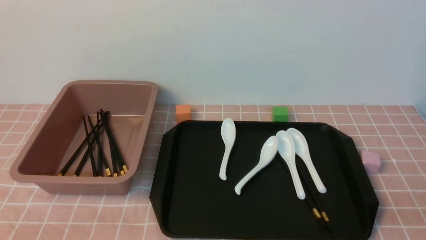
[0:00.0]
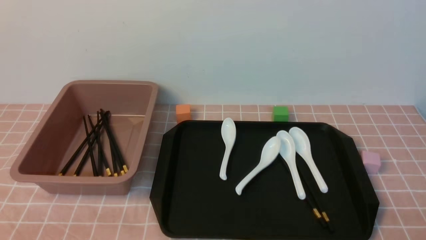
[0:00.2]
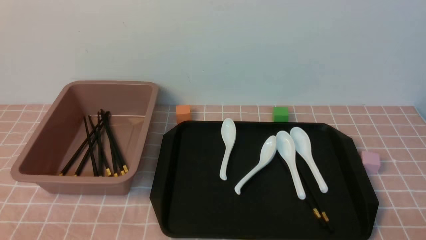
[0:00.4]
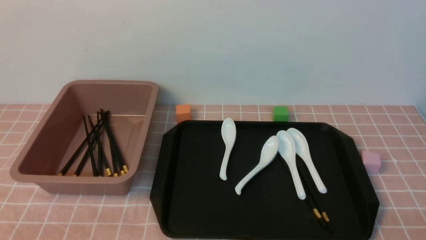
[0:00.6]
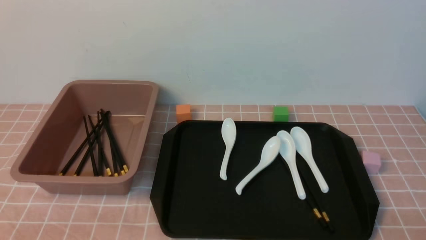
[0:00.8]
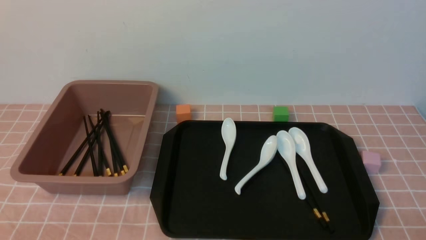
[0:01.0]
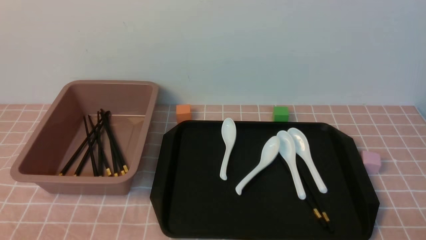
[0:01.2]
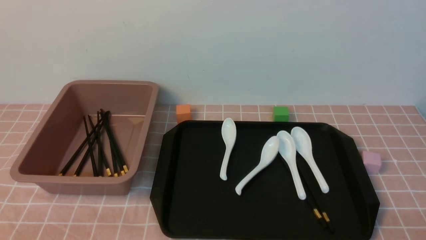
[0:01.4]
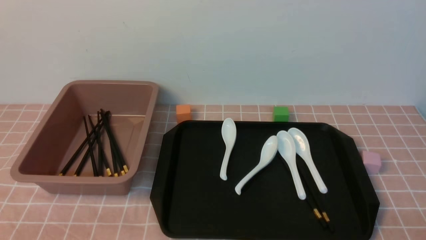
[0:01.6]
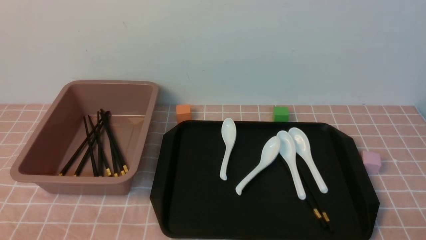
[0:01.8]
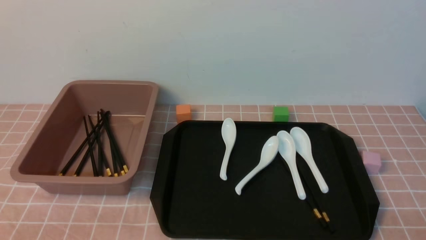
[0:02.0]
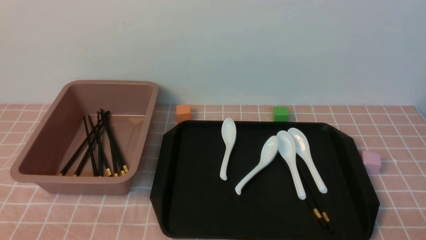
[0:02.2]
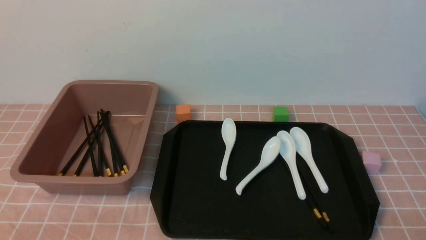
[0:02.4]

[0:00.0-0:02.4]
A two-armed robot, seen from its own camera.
0:00.0 to 0:01.2: The right gripper shifts about 10 cm downward.
0:01.2 to 0:02.4: Both grippers stay about where they are.

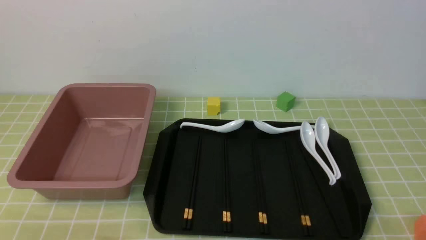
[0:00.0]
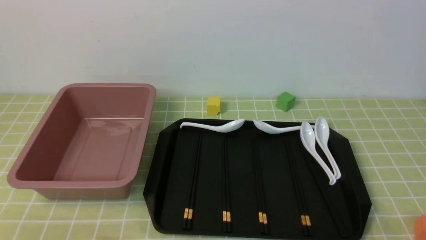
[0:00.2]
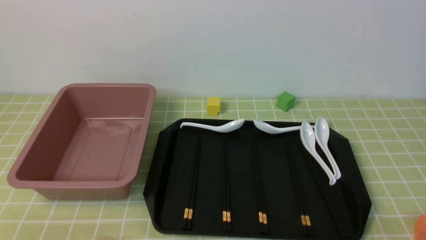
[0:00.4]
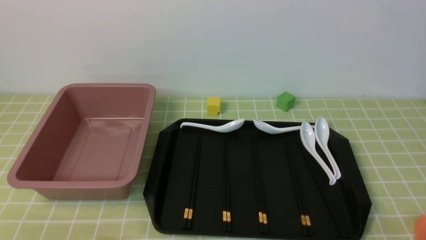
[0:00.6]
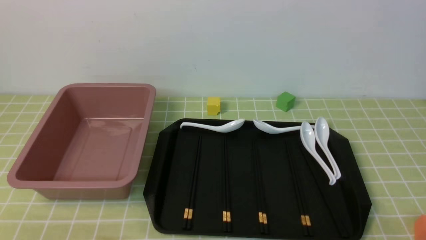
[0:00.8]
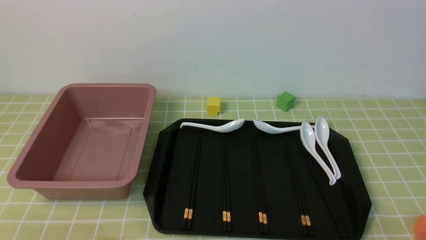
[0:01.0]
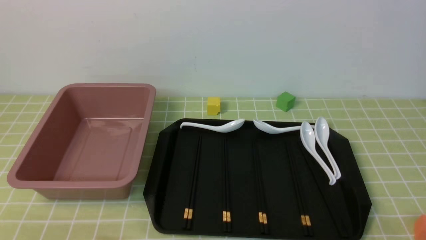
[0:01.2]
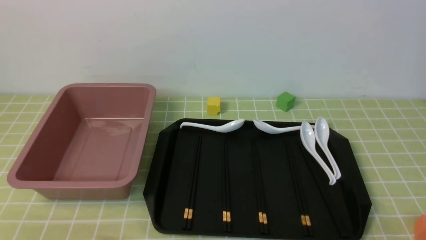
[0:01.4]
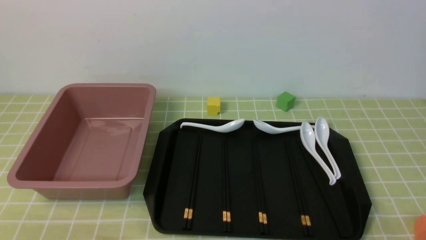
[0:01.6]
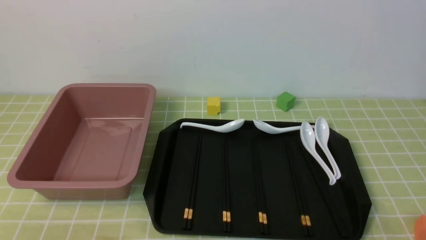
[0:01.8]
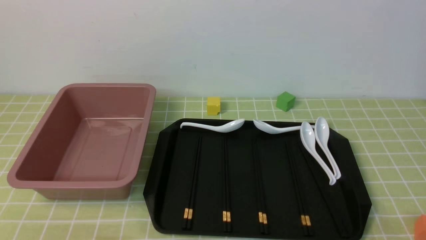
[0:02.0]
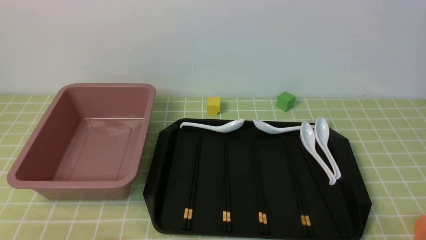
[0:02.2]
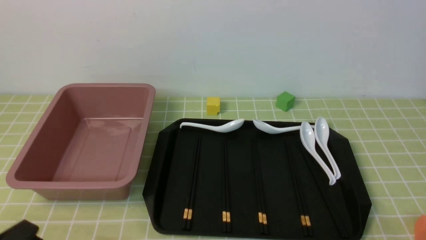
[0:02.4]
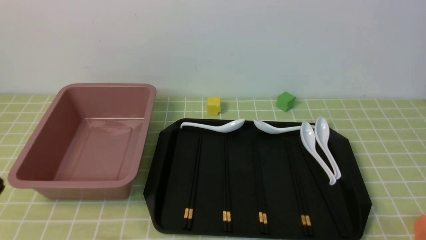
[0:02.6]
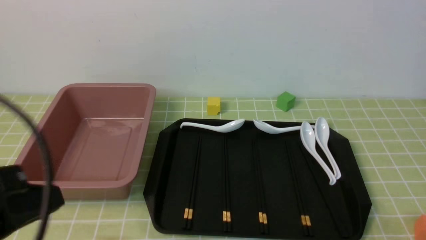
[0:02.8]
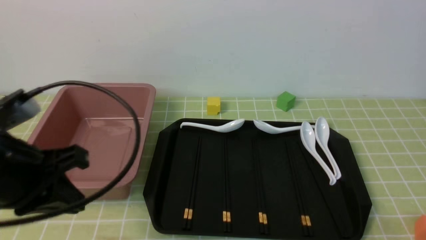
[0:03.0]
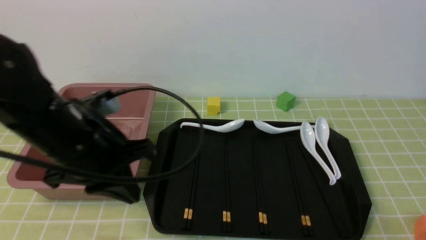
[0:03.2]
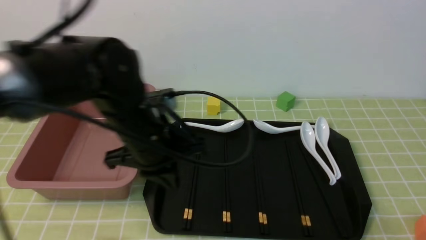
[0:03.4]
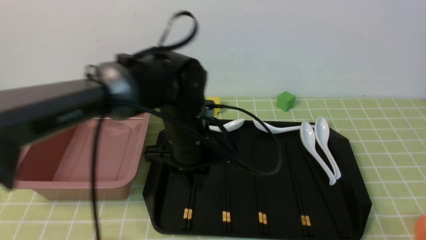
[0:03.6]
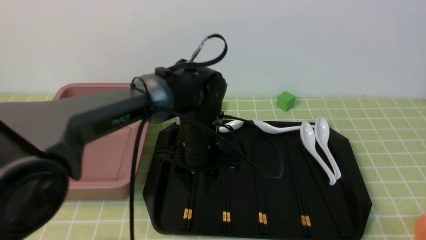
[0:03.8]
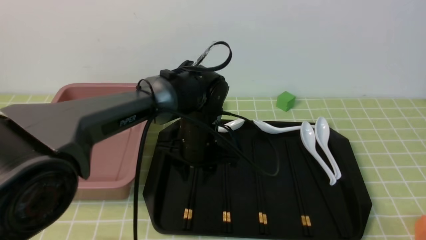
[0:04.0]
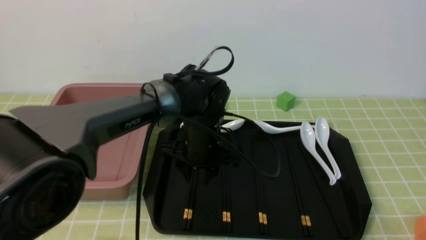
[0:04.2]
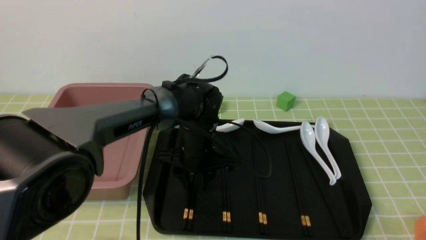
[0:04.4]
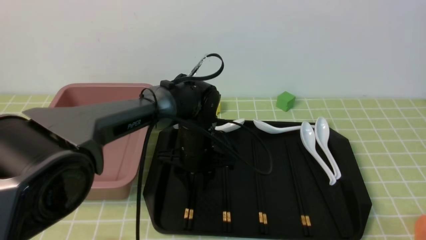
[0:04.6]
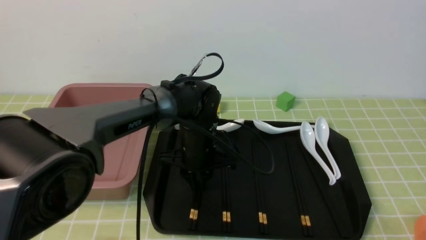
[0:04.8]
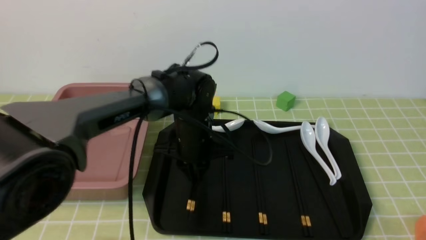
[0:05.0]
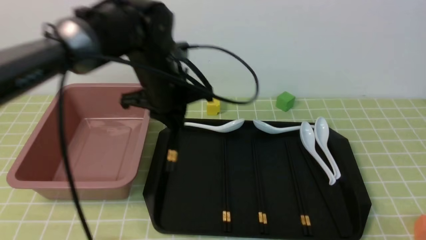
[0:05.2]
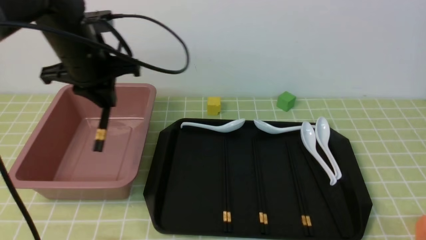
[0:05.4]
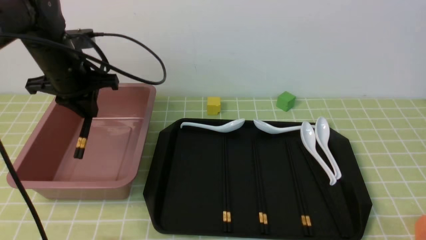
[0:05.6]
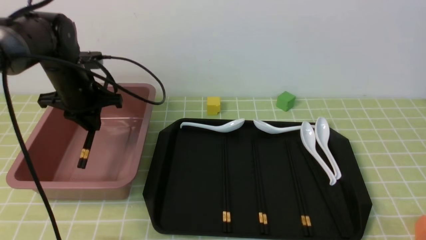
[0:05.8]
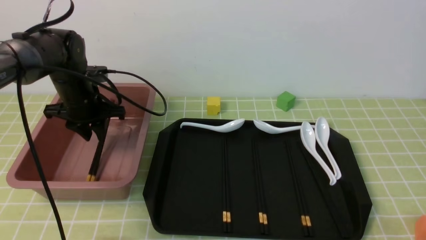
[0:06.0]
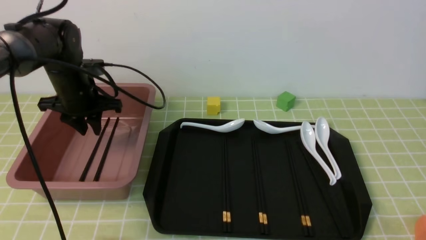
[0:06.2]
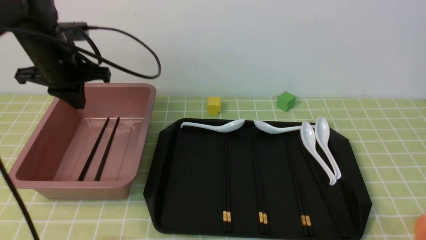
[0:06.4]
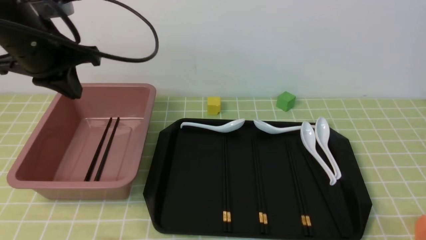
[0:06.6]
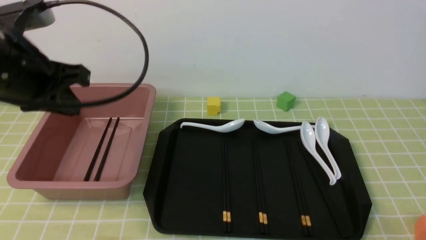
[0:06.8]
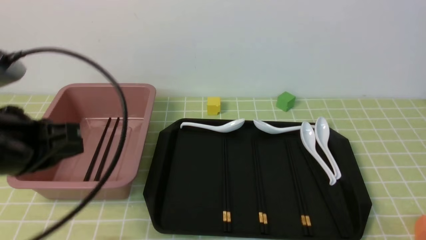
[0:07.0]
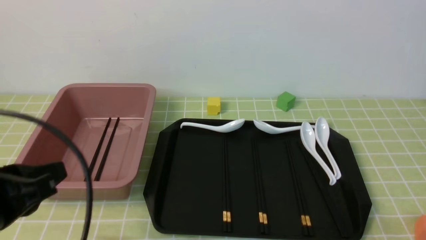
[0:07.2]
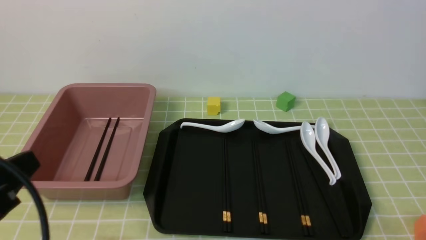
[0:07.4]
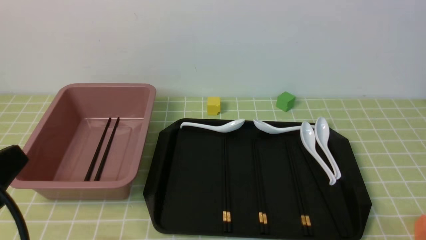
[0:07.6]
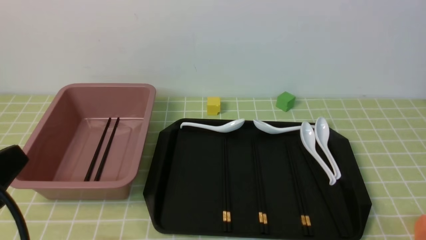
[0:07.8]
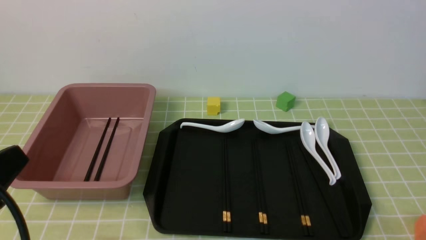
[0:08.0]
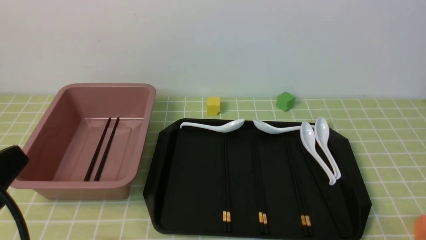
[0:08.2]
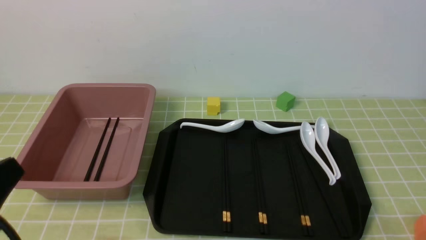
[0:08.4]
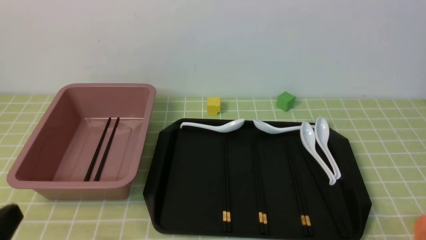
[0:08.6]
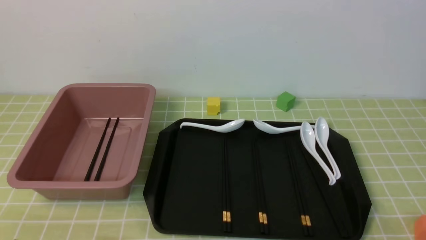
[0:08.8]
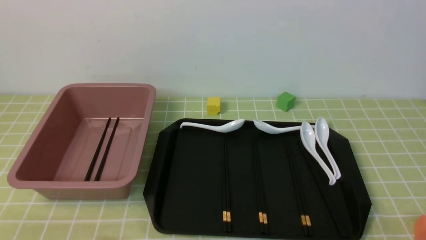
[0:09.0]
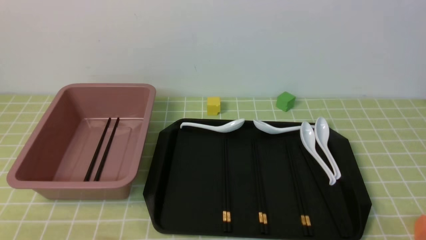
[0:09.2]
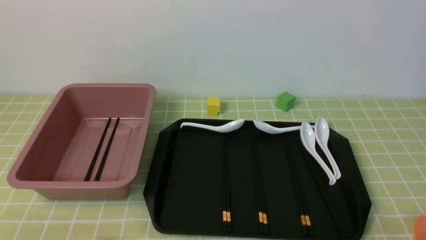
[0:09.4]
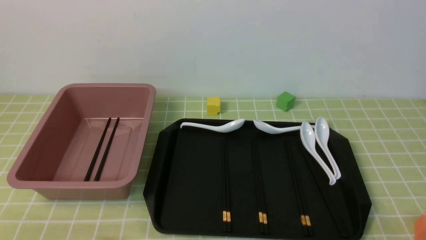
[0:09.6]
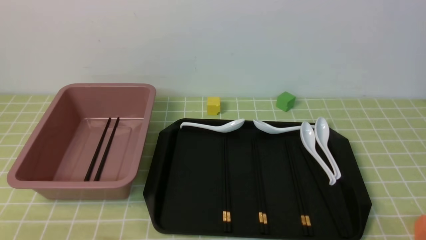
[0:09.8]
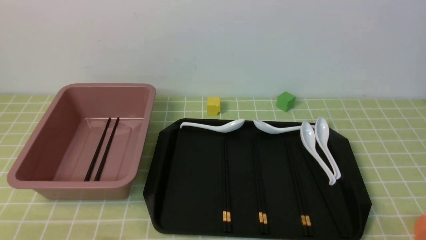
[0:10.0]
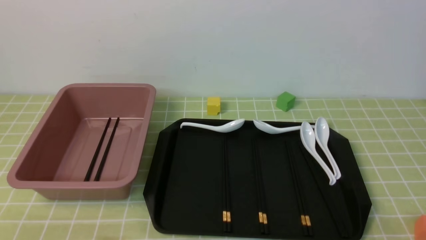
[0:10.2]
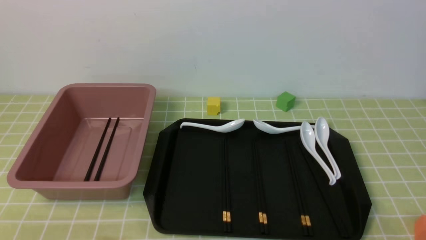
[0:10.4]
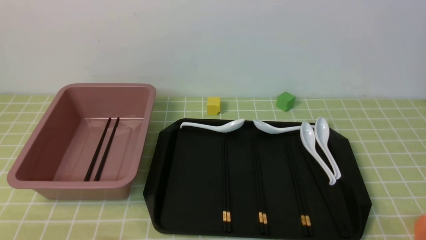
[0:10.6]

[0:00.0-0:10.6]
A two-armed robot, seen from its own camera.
Step, 0:00.0 to 0:05.0: use the left arm to grab a pair of chopsticks.
Step, 0:05.2 to 0:06.2: use the left arm to put the chopsticks into the lunch box.
0:01.6 to 0:03.0: The left gripper is displaced upward and forward by about 20 cm, and closes up.
0:03.0 to 0:04.6: The left gripper travels forward, to the right and downward by approximately 35 cm, and opens.
0:04.6 to 0:06.0: The left gripper goes approximately 20 cm to the left.
0:06.0 to 0:07.6: The left gripper is displaced backward by about 35 cm, and closes.
0:07.6 to 0:09.0: The left gripper is displaced downward by roughly 10 cm.
